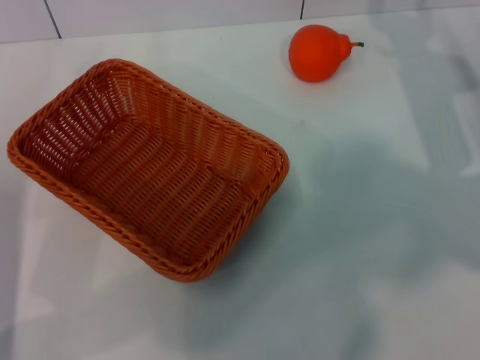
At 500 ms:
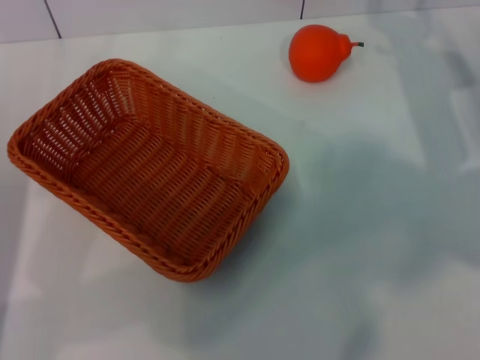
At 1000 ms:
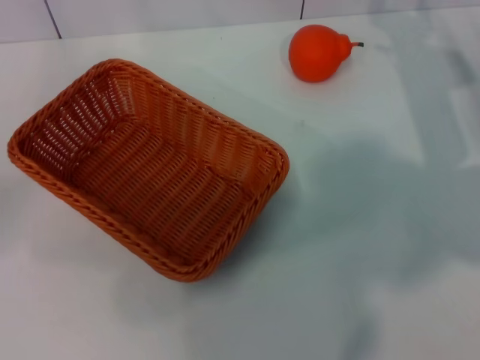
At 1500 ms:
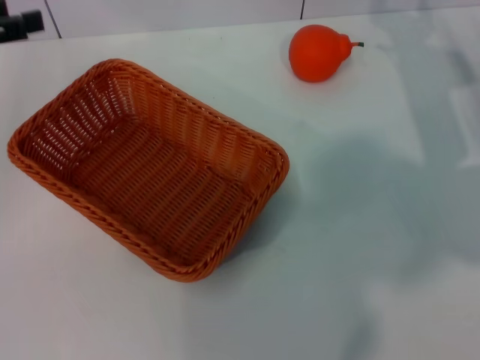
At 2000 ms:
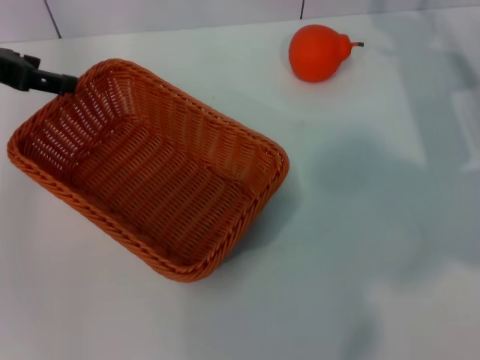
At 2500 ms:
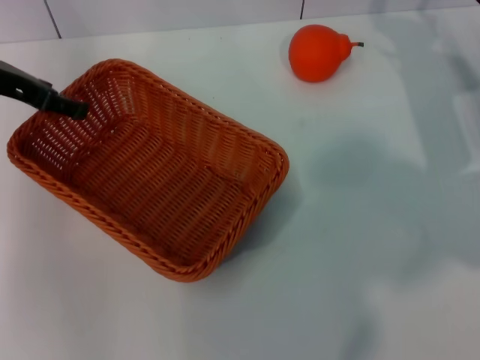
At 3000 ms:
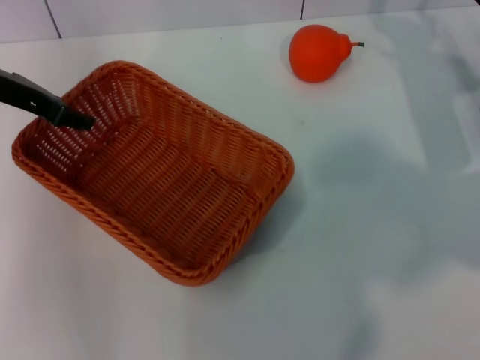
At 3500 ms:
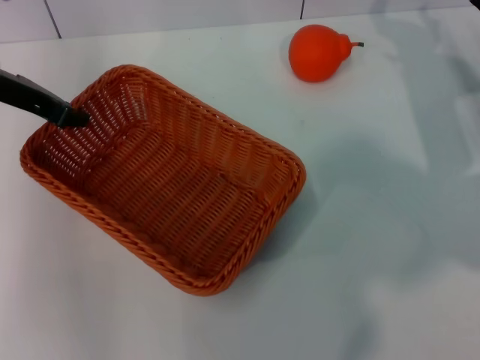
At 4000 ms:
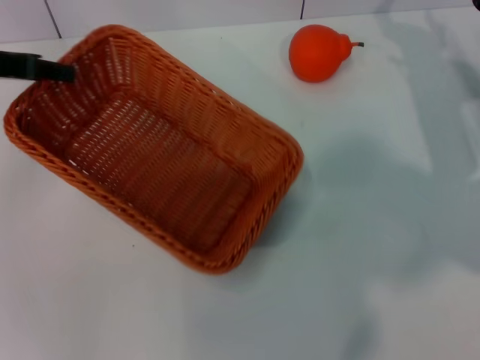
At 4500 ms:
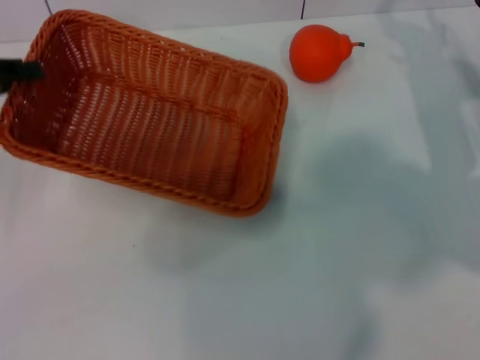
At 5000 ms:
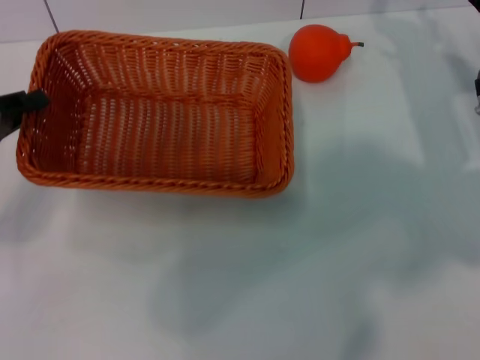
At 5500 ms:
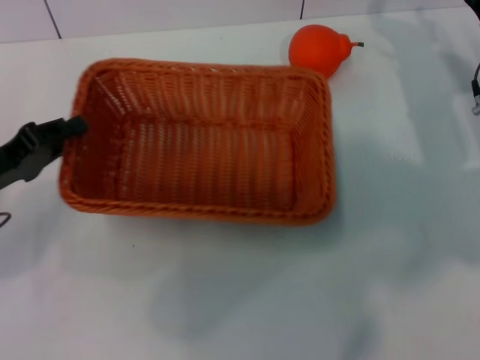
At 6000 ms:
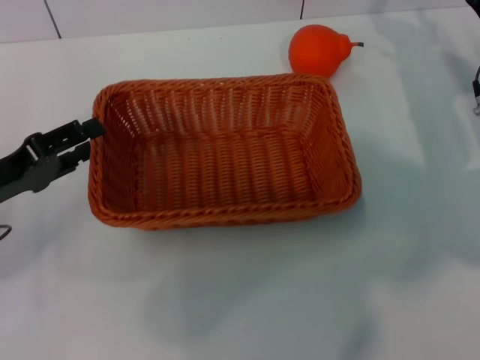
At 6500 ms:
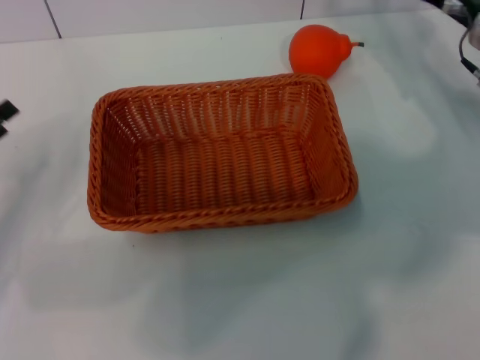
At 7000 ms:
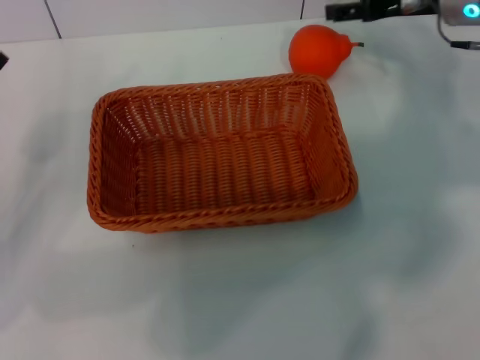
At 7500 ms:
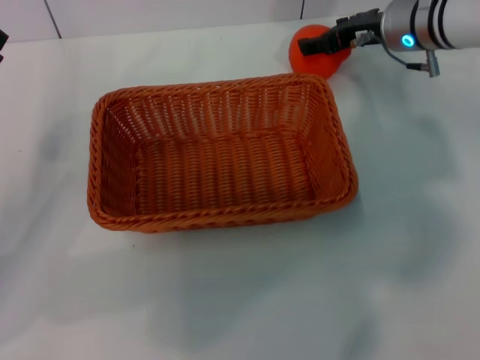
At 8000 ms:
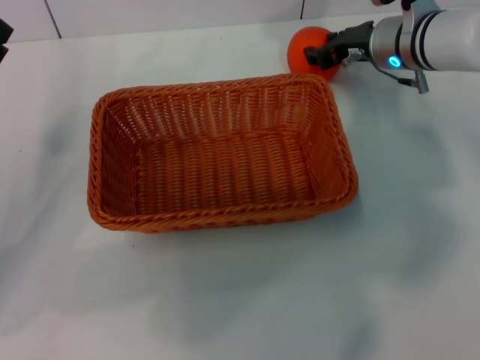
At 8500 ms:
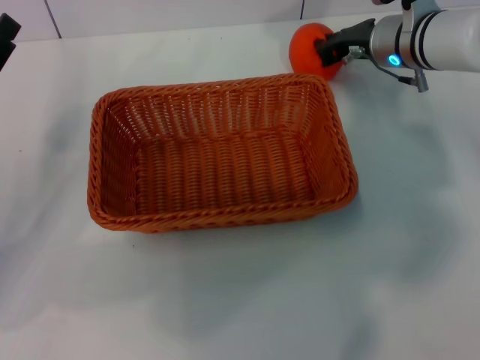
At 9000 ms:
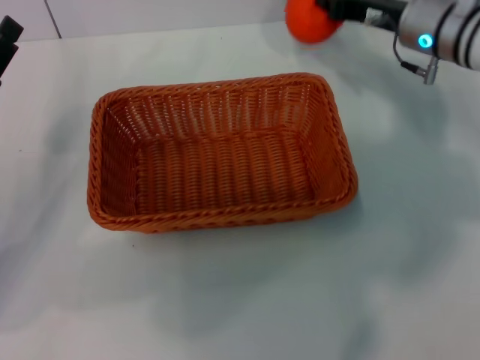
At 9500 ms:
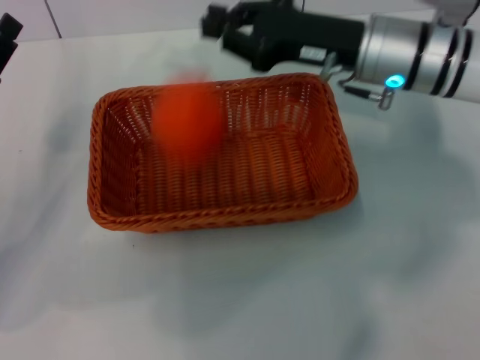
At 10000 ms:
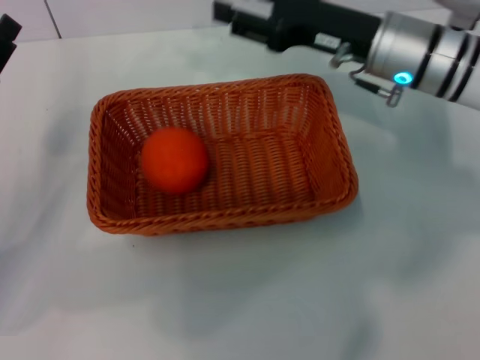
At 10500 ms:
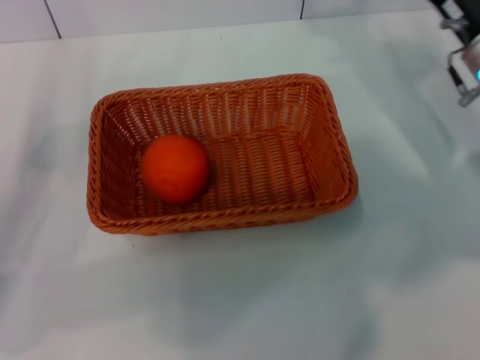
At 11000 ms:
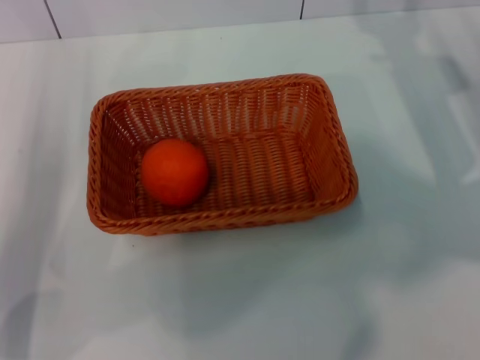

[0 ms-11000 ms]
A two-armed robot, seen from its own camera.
Task of the whole recording: the left gripper pick up the yellow basket and place it horizontally in the middle of the table, the right gripper pick up the orange and place it into the yellow basket.
Step, 0 ms to 3500 ms: Pick up the light basket with the left gripper.
Step, 4000 ms to 6000 ms: Place the light basket in the center of view with the left gripper.
Step, 6500 ms to 8500 ms: Pick up the orange with the right gripper.
Step, 9000 ms to 9500 ms: Place the orange into the light basket with the right gripper.
0 ms to 2000 ms: The left gripper shifts roughly 20 cm forward and upward.
2000 ms to 3500 ms: The left gripper shifts by some 5 cm, and closes its fingers.
3500 ms to 5500 ms: The left gripper moves backward and downward, roughly 15 cm.
5500 ms to 7500 ms: The left gripper opens up, while the right gripper heads to the left, forward and upward, covering some 15 cm.
7500 ms to 9000 ms: The right gripper closes its fingers.
9000 ms to 11000 ms: The right gripper travels backward and to the right by some 10 cm, and opens up.
